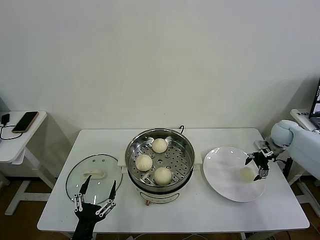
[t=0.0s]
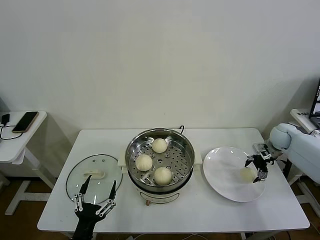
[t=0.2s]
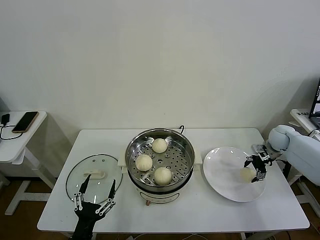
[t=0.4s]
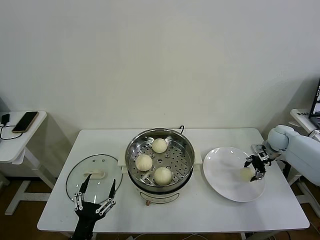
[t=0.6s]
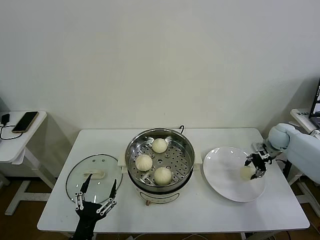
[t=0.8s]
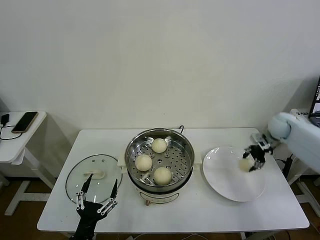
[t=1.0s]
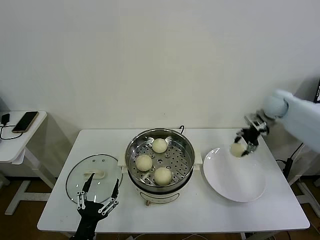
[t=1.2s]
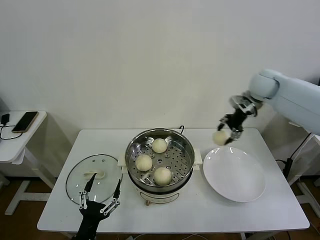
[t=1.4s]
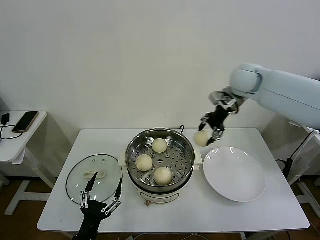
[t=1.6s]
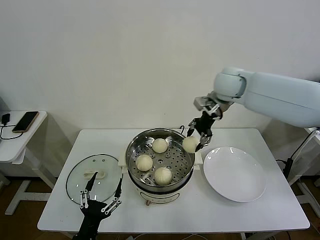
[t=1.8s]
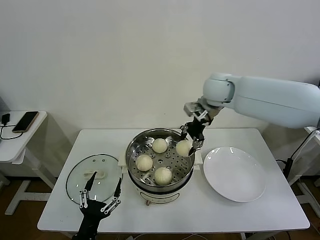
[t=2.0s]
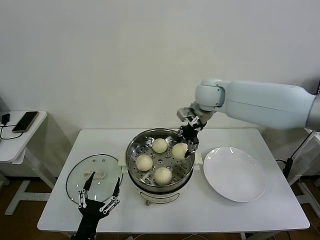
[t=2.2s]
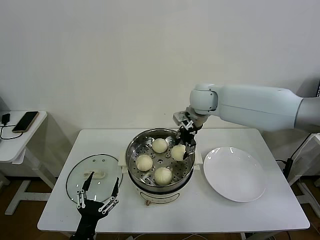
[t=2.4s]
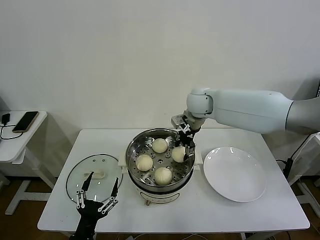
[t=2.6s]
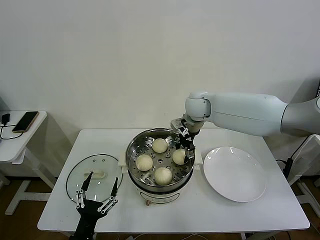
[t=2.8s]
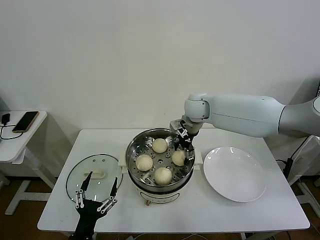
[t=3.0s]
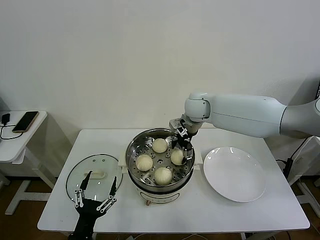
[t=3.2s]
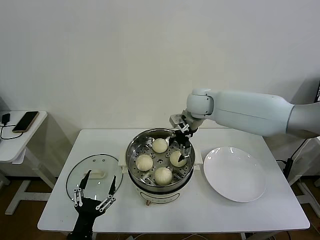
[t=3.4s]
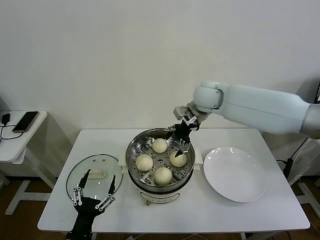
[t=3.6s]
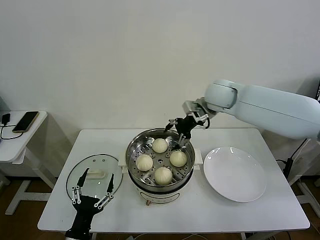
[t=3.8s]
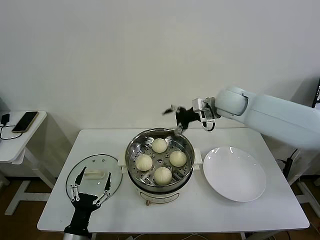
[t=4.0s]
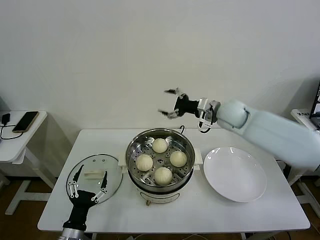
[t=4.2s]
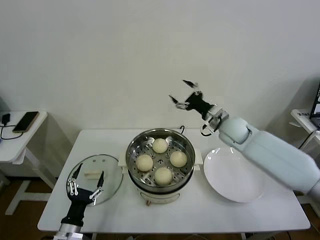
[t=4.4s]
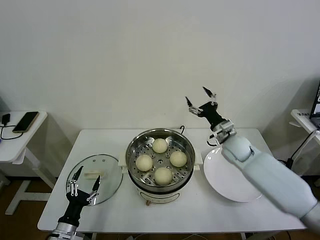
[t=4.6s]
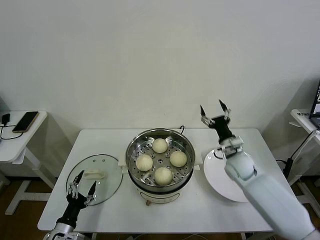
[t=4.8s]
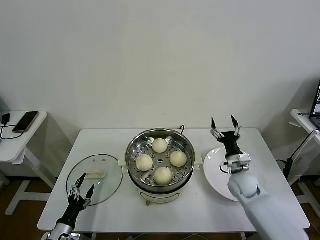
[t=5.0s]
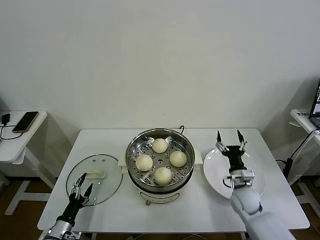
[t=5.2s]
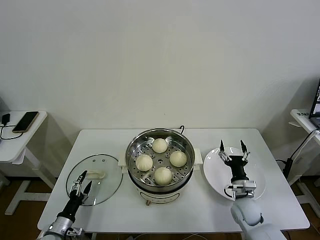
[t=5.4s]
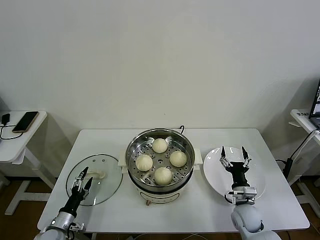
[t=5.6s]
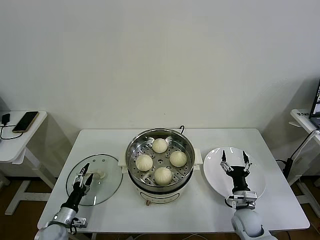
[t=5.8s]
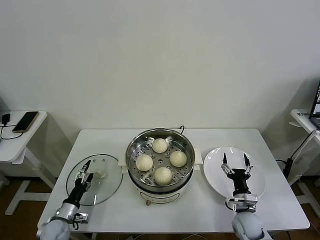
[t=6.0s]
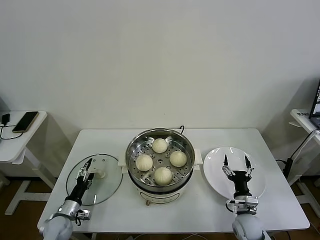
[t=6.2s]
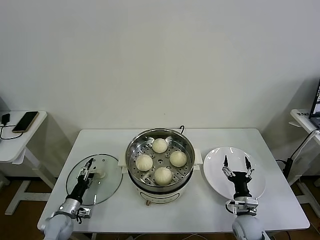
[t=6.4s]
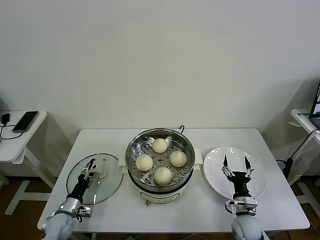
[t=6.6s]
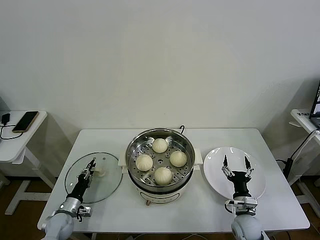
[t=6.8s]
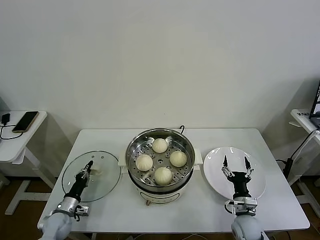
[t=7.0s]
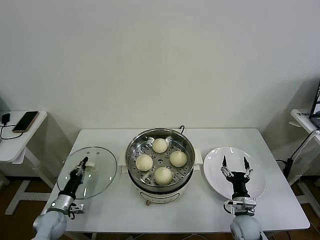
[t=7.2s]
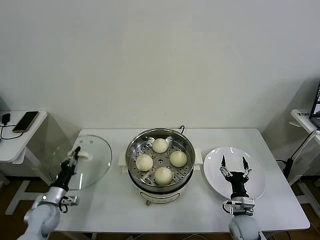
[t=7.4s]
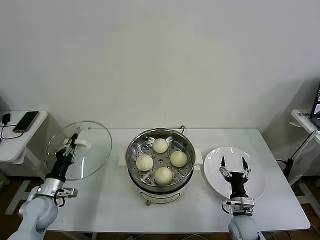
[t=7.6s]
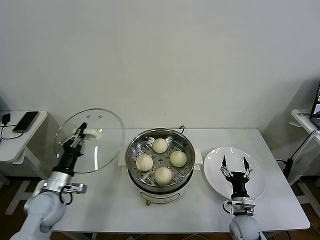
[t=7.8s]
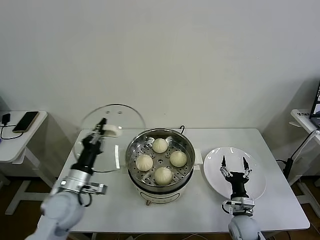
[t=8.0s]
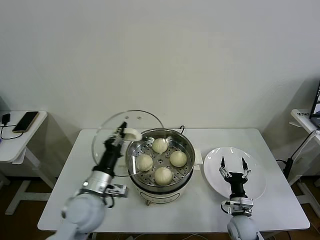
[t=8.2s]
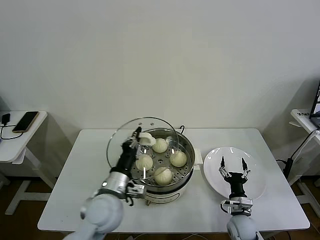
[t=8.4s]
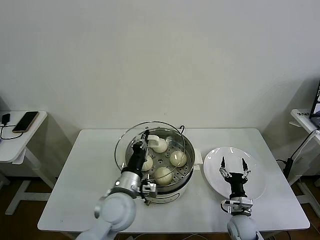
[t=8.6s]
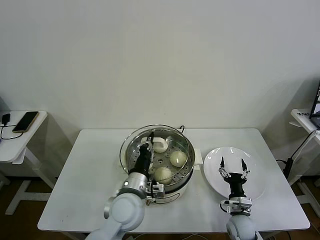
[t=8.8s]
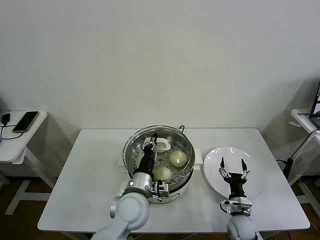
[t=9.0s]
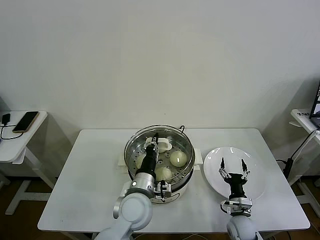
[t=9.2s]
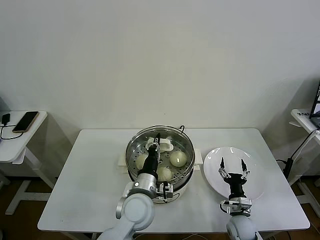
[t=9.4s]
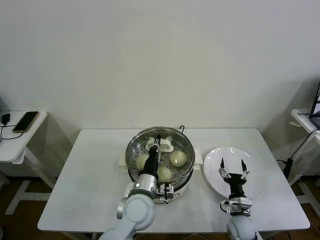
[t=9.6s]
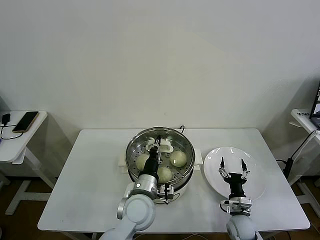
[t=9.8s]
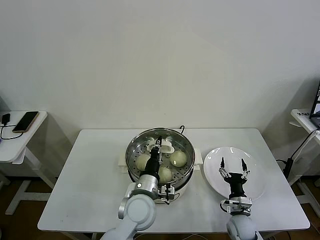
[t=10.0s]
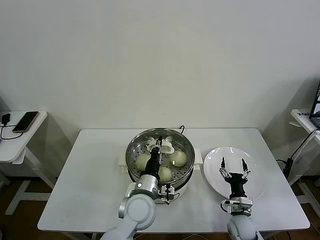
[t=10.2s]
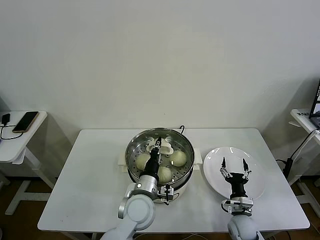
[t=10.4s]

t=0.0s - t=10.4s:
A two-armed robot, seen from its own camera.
Task of the whole recording: take steamed baozi put them in steamer then cover it.
Step, t=0.8s - t=3.2s: Place the baozi on the steamer with right gripper.
Step, t=3.4s - t=7.0s: Grasp the pot lid with left gripper.
t=0.0s - t=1.4s: The right gripper is displaced upward and to the left by approximately 25 cm, and closes.
t=1.4s - t=3.0s: The right gripper shifts approximately 20 cm to the left, and opens up.
t=3.0s - t=4.4s: The right gripper travels to the right, downward and backward by approximately 15 cm, and opens up, while the left gripper ends up roughly 10 cm from where it was.
t=4.4s - t=6.0s: The left gripper moves forward, to the left and downward, some 15 cm, while the right gripper moves downward and backward, some 35 cm.
t=6.0s - t=7.4s: The left gripper changes place by some 5 cm, and closes up.
t=7.4s - t=9.0s: The left gripper goes about 35 cm to the right and upward.
t=9.0s - t=10.4s: The grippers make only small movements.

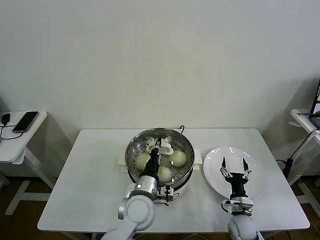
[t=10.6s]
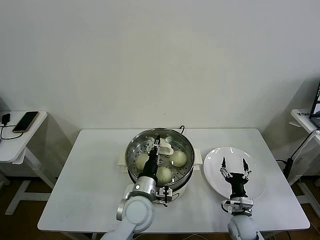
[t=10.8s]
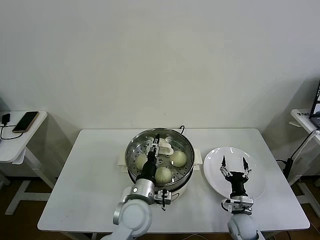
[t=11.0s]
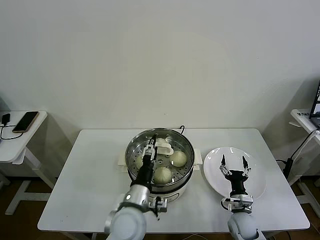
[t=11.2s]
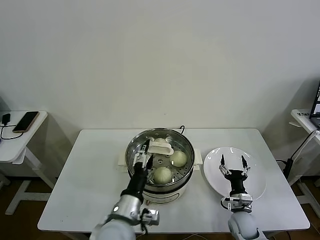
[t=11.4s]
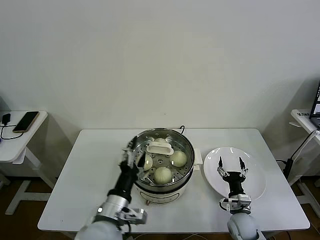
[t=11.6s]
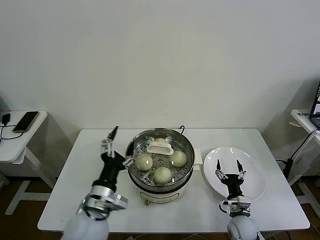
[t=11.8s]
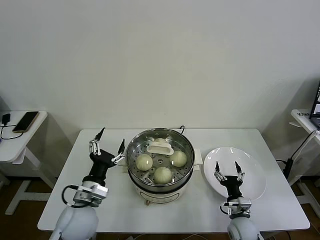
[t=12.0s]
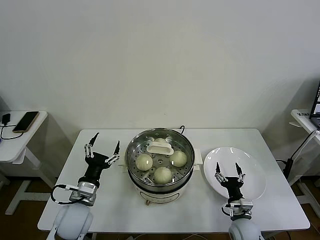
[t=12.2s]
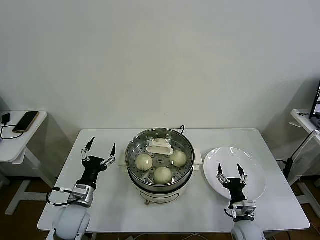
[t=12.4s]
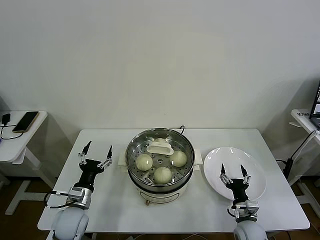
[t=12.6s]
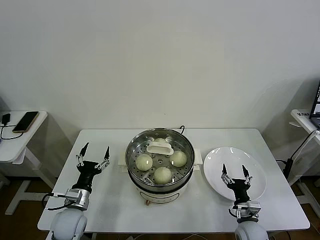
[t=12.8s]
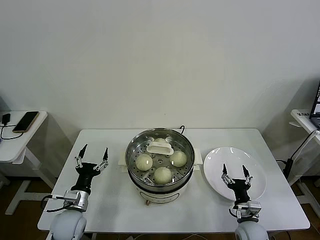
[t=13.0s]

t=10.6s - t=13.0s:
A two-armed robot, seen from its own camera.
Task of the whole recording: take steamed baozi put them in steamer then cover it.
t=10.6s - t=11.8s: The left gripper heads to the left, backward and upward, covering approximately 15 cm, and opens up.
t=11.8s - t=13.0s: The left gripper heads downward, to the left and forward, covering about 20 cm.
